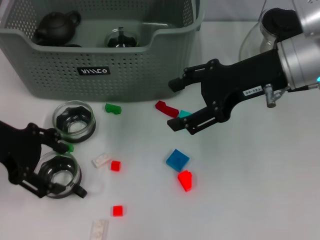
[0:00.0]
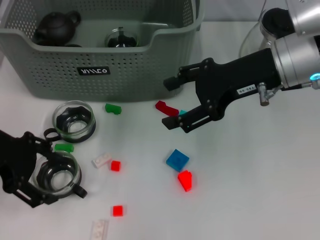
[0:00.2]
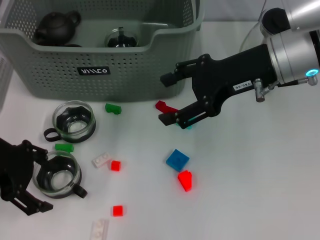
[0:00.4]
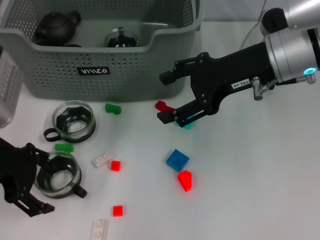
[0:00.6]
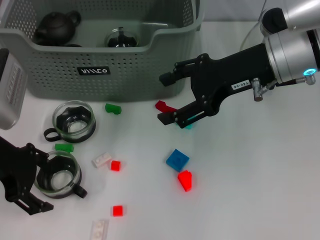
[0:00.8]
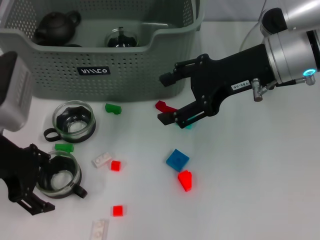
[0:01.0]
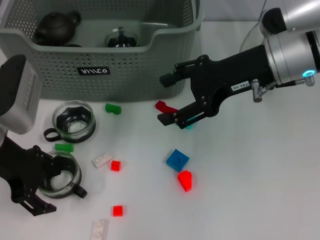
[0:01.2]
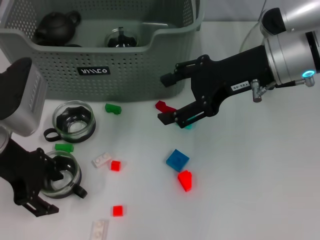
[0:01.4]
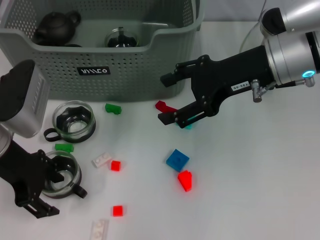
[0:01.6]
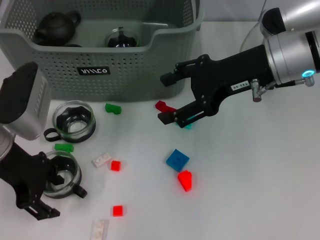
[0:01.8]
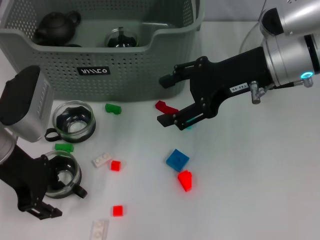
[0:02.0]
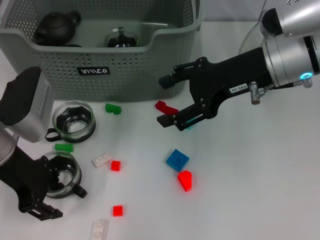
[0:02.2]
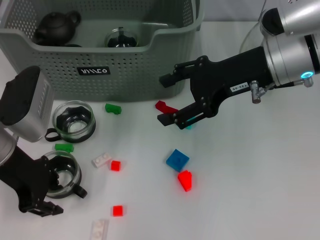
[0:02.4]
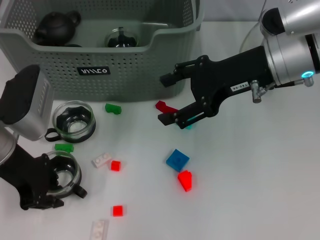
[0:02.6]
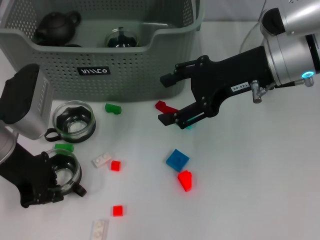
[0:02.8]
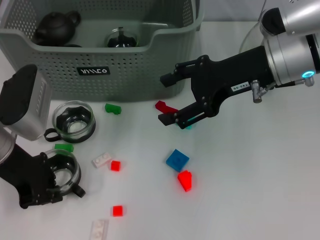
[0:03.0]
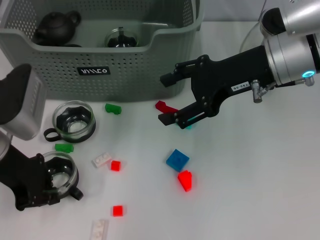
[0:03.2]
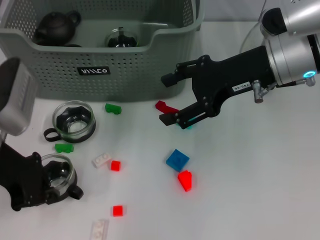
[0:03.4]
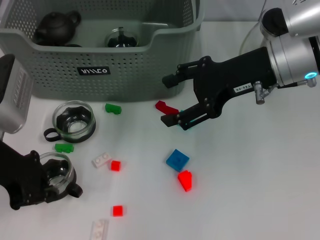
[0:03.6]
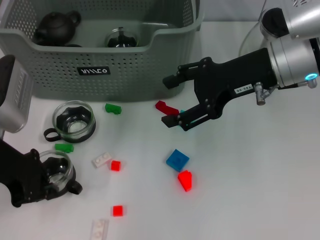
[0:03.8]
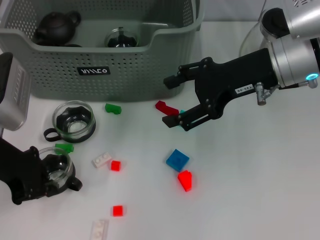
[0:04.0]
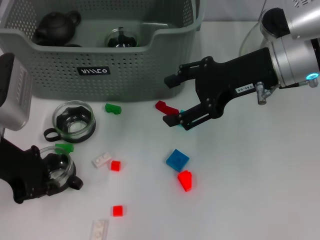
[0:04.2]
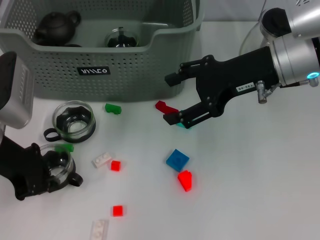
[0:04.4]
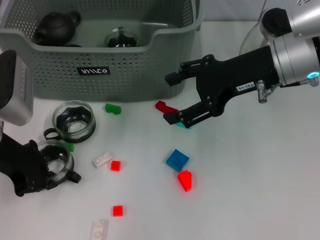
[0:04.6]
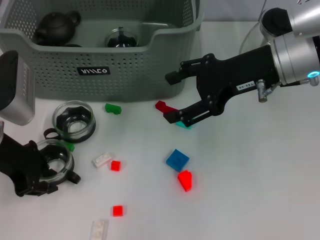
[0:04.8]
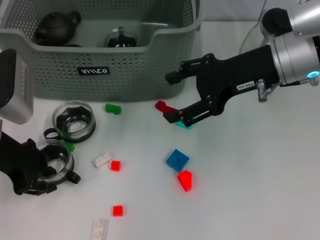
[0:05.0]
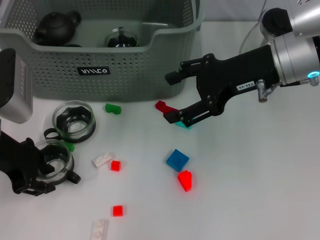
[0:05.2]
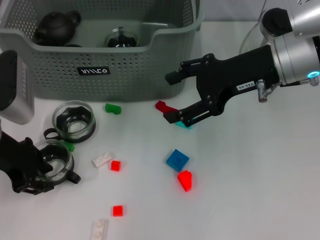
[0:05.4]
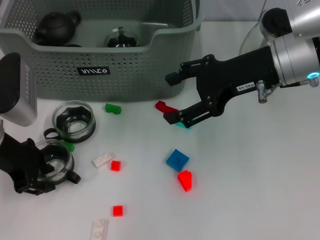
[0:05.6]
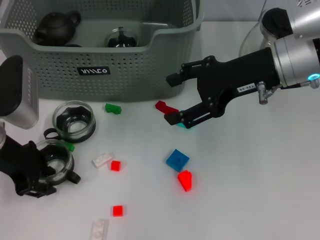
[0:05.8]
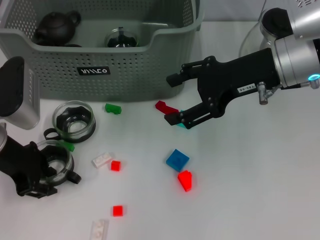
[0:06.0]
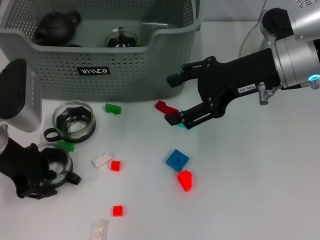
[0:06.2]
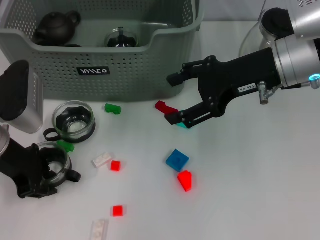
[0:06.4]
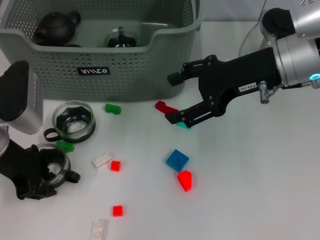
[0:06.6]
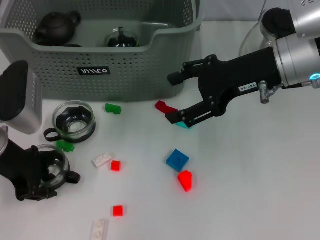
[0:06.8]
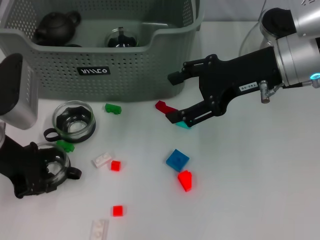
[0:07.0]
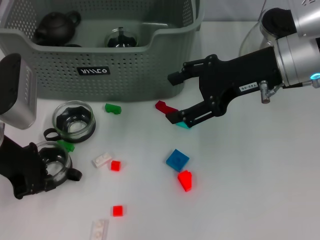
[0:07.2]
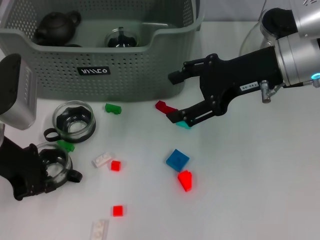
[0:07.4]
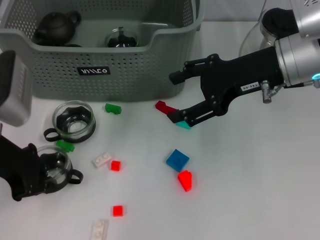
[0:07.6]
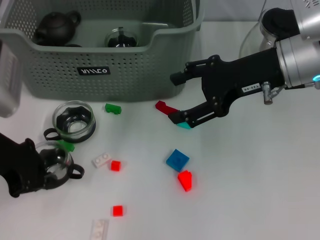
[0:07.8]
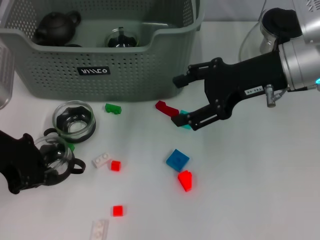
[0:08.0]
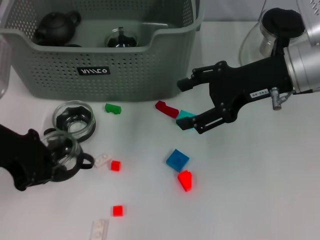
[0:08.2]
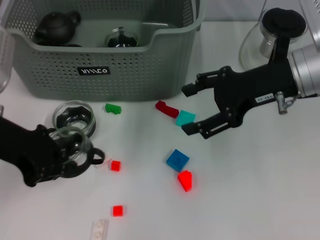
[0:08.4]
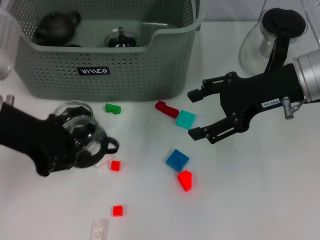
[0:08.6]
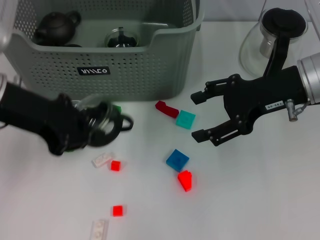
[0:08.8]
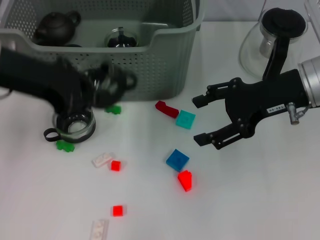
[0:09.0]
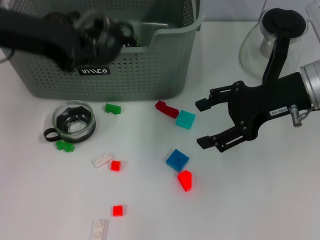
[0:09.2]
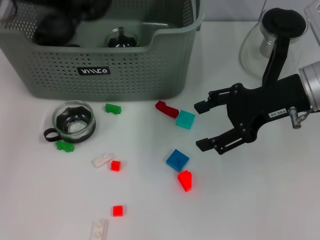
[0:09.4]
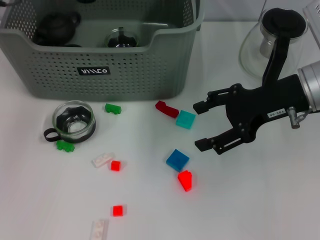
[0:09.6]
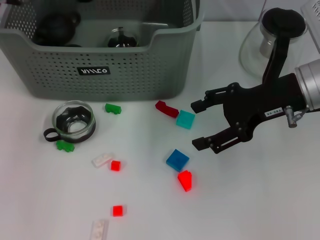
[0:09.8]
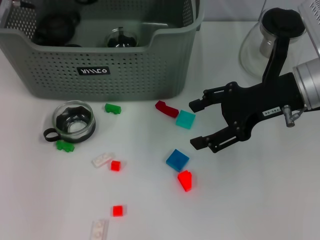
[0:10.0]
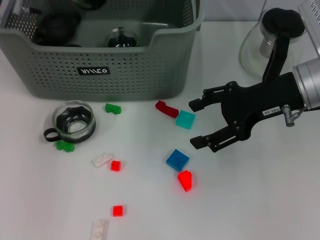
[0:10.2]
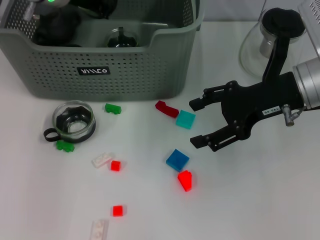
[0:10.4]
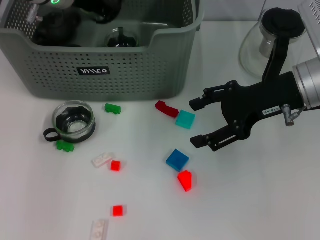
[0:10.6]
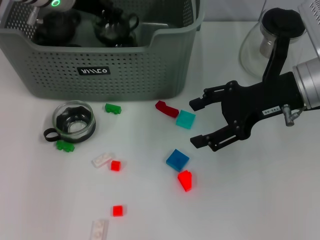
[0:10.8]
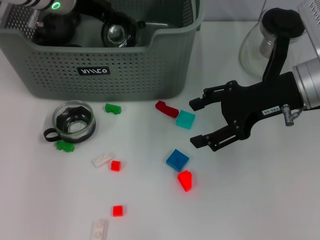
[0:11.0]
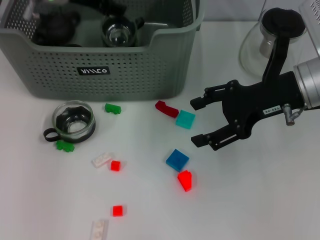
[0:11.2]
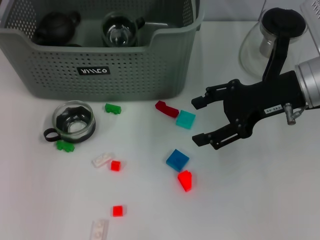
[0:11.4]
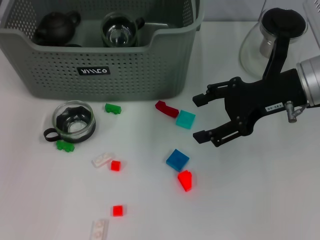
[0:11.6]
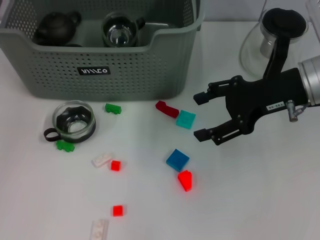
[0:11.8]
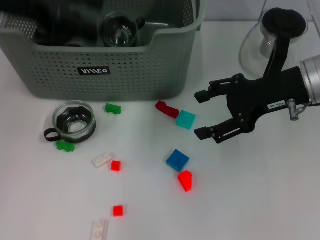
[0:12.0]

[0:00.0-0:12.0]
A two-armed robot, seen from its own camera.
Task of the whole recording: pick up the teacup on the table and place it into the storage bin, pick up the block on the table and place it into the storage bin.
Step, 0:00.0 to 0:06.8: Grasp the cup with left gripper.
Step, 0:07.0 to 0:11.2: Place the cup in the storage box with left gripper.
0:00.0 to 0:01.6: The grippers make only small movements.
0:01.6 to 0:03.0: The left gripper closes up.
0:03.0 to 0:04.4: The grippers stay close to where they were, moving slightly.
0:04.4 to 0:06.0: The left gripper opens up.
0:06.0 to 0:07.6: The left gripper closes its fingers.
0:07.6 to 0:09.0: The left gripper goes about 10 cm upward.
0:09.0 to 0:10.4: The left gripper is displaced forward by roughly 15 cm.
0:10.4 to 0:12.0: The left gripper is displaced backward, upward and to the left by approximately 15 cm, and opens.

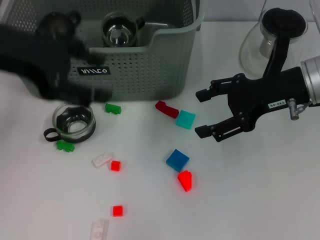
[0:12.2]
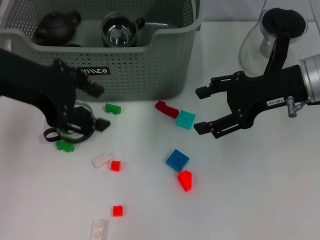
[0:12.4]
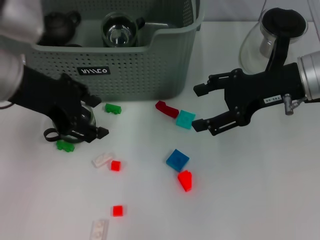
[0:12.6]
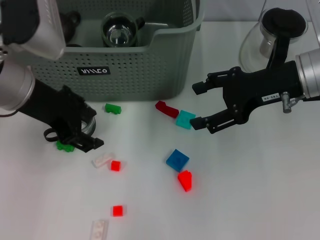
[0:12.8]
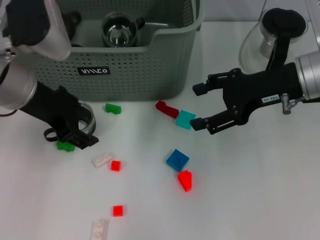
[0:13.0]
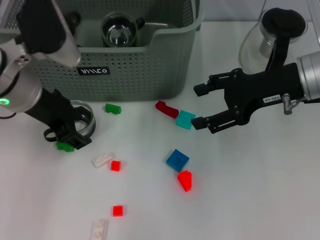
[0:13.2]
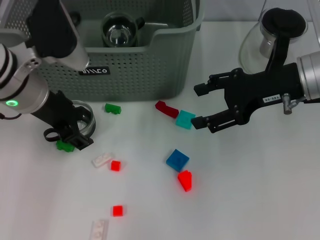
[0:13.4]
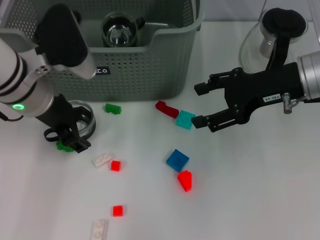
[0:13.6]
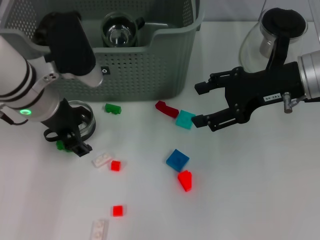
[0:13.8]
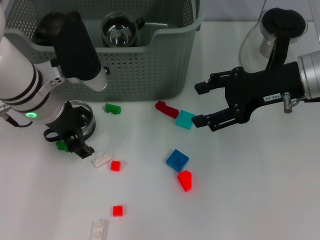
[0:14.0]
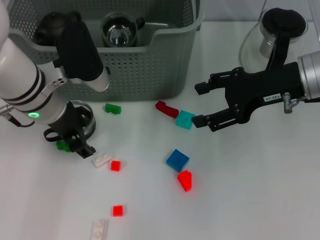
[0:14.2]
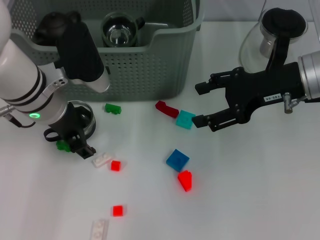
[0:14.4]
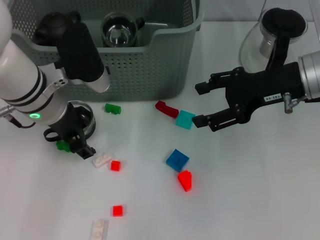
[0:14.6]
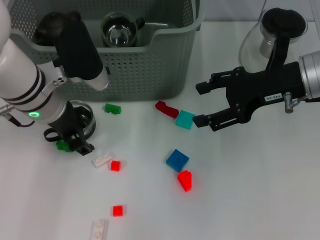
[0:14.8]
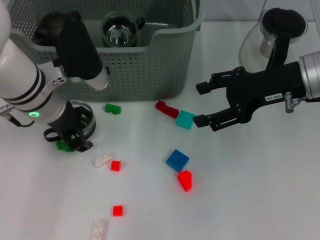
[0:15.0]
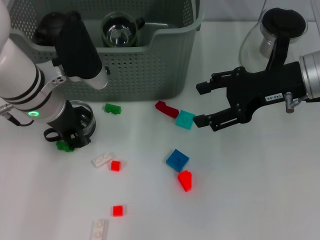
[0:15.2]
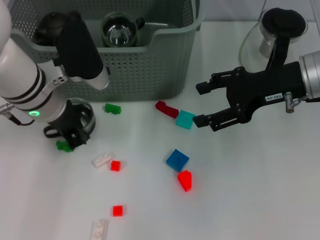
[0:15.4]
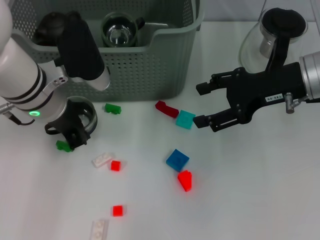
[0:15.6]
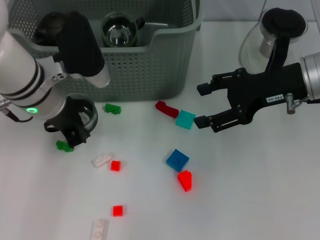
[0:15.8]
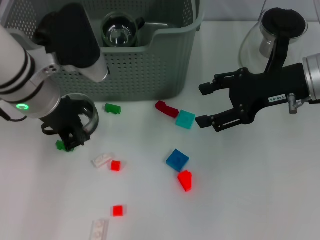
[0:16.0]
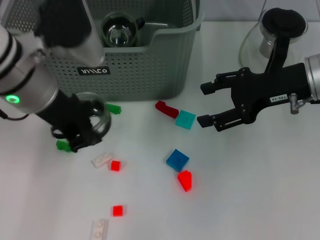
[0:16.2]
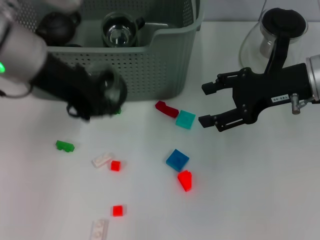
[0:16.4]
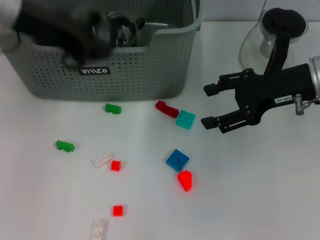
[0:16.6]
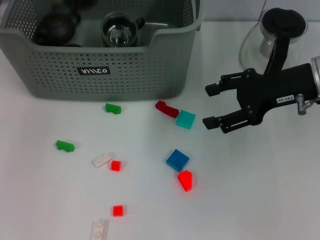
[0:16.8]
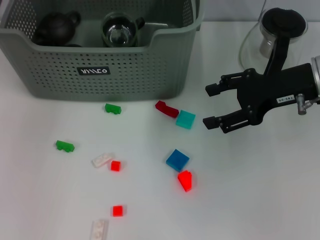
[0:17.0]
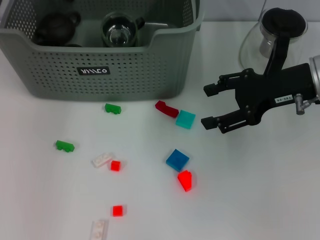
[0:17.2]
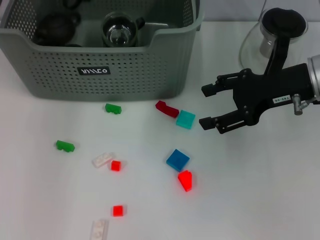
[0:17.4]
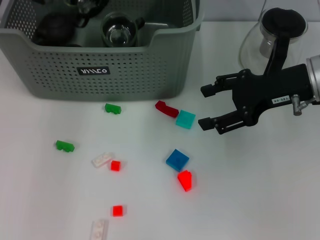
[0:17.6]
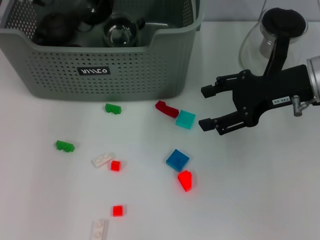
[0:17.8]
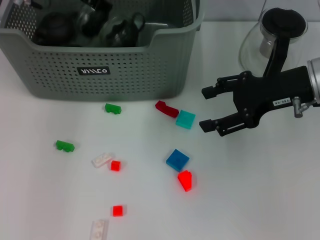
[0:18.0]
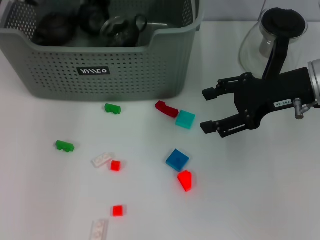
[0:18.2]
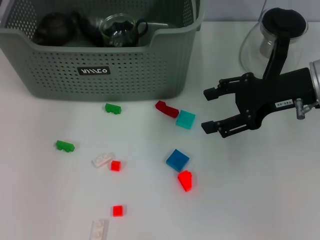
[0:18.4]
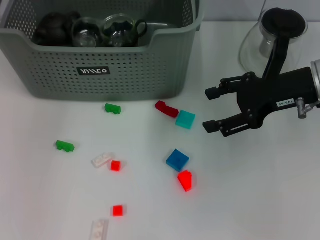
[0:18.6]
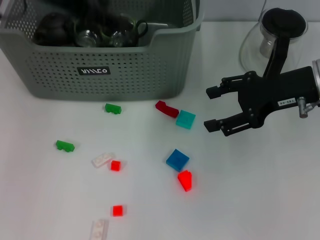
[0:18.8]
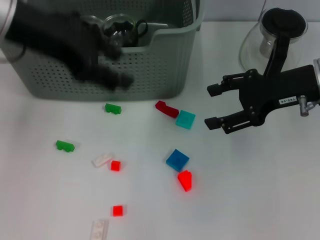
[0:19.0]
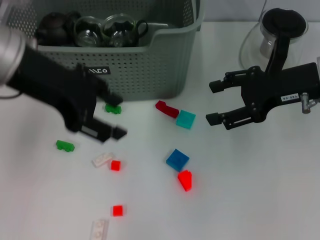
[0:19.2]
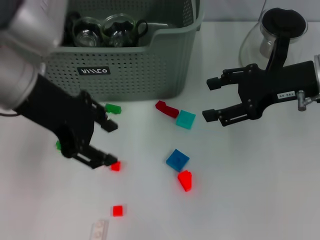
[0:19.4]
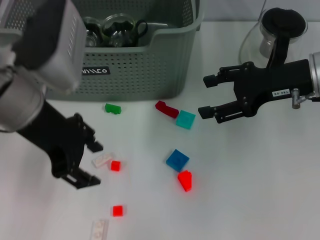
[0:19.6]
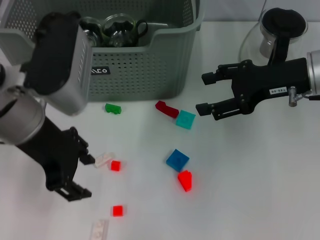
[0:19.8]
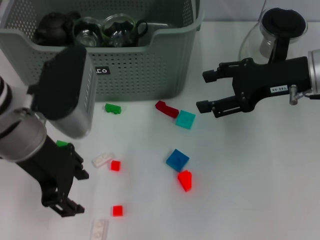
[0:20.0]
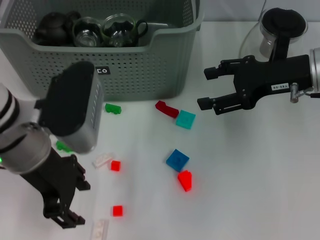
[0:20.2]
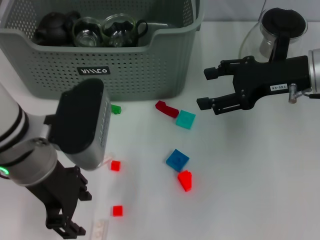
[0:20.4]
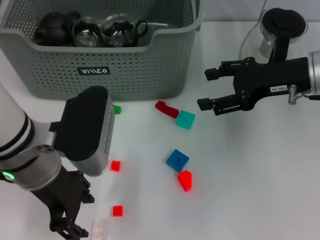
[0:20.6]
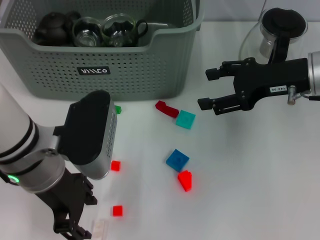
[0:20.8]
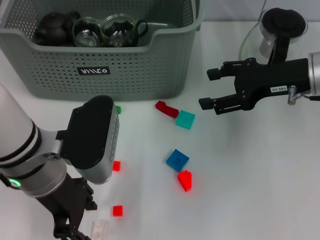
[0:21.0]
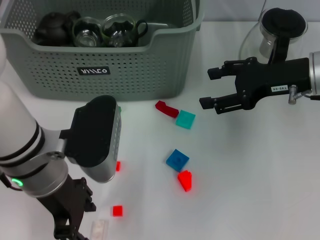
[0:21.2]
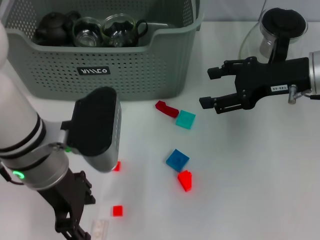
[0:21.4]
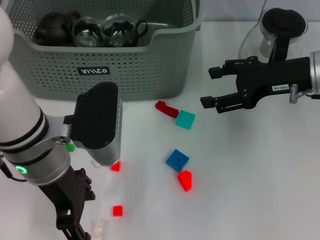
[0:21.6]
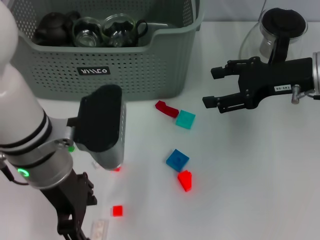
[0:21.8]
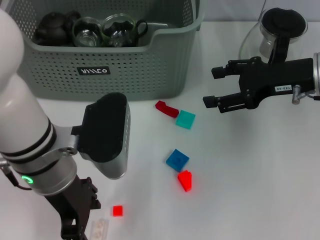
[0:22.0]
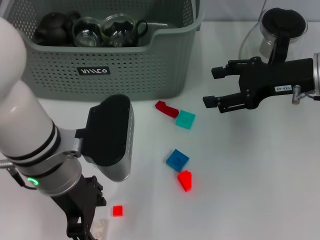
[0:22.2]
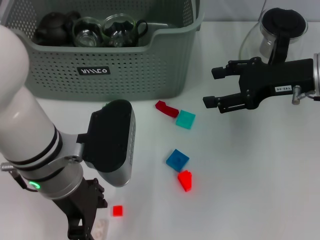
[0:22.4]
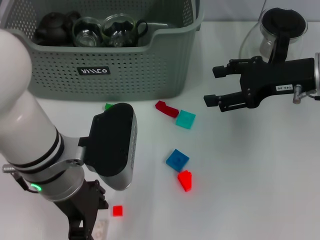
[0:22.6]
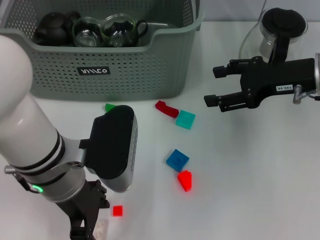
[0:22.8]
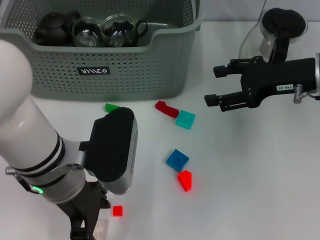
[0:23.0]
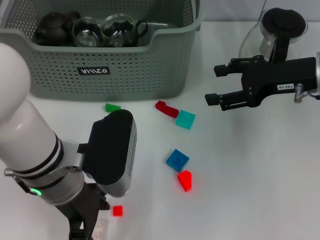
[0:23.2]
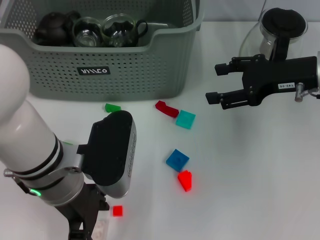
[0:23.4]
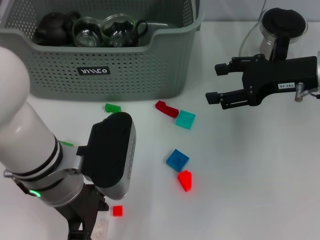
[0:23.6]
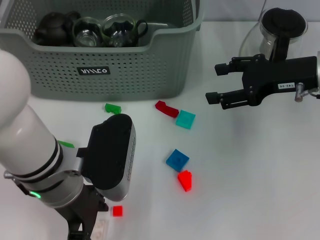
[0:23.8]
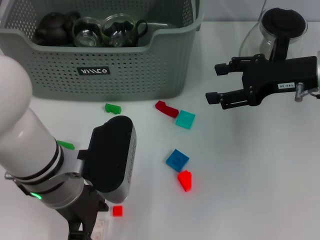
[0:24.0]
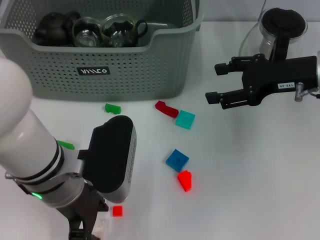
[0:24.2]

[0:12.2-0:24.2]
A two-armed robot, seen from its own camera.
Task of the whole recording: pick up the teacup on the table and place it into the storage bin, pick up the block on the table and place it into the storage bin.
Step, 0:12.2 to 0:15.2: Grasp the cup with left gripper.
Step, 0:15.4 to 0:18.6: Place the cup in the storage box with left gripper.
0:12.2 to 0:13.8: The left gripper heads downward and to the right, covering about 15 cm.
0:13.8 to 0:15.2: The left gripper closes its fingers.
0:15.2 to 0:16.6: The left gripper shifts approximately 15 cm upward.
0:16.6 to 0:18.2: The left gripper heads forward, covering some 10 cm, and opens.
0:18.2 to 0:19.8: The left gripper heads backward, covering some 20 cm.
0:19.8 to 0:21.2: The left gripper shifts roughly 5 cm downward.
0:21.2 to 0:24.2: The grippers stay close to where they were, moving slightly.
